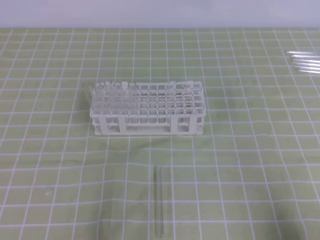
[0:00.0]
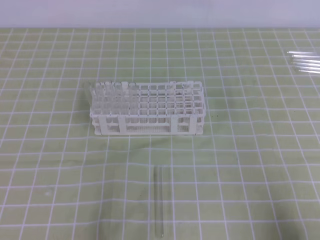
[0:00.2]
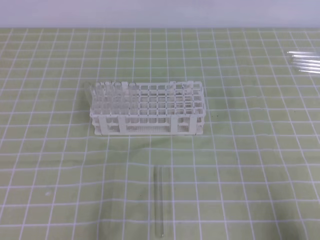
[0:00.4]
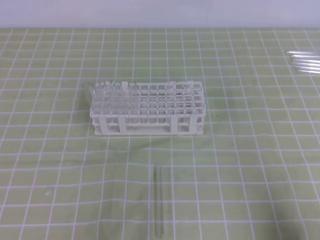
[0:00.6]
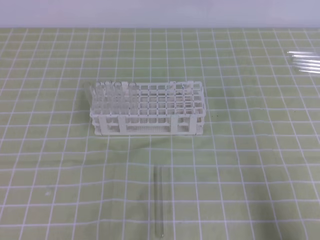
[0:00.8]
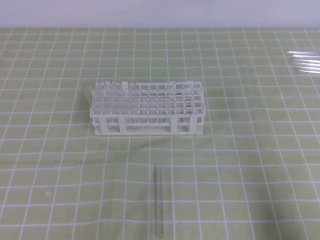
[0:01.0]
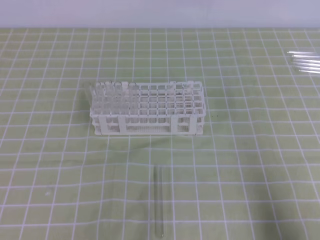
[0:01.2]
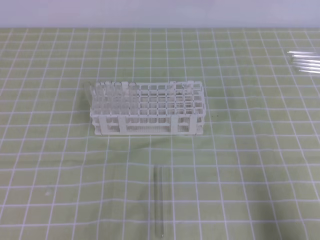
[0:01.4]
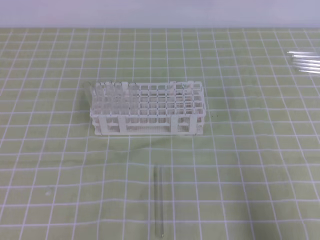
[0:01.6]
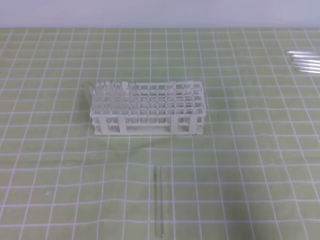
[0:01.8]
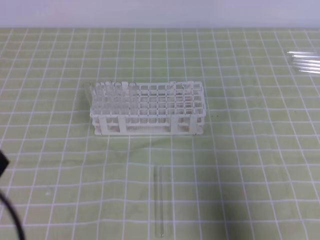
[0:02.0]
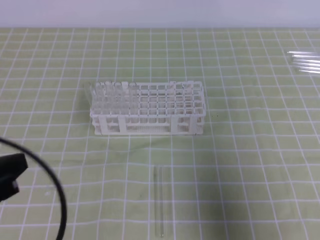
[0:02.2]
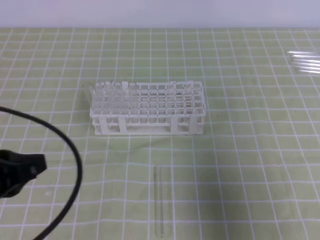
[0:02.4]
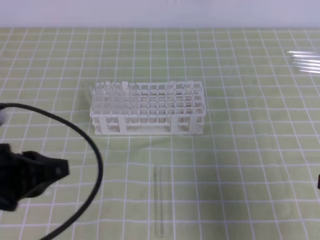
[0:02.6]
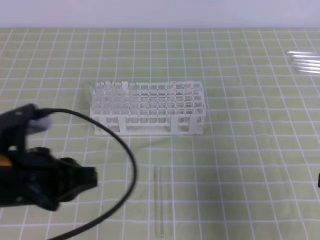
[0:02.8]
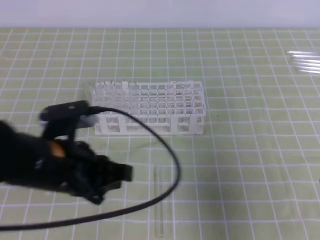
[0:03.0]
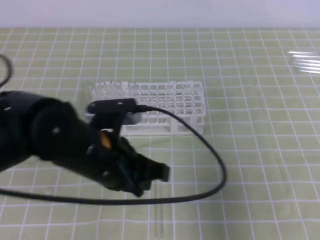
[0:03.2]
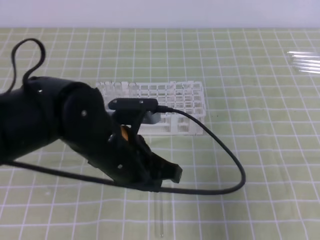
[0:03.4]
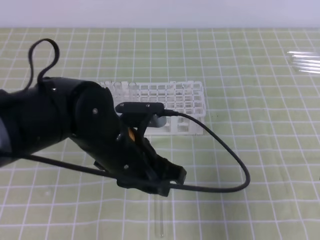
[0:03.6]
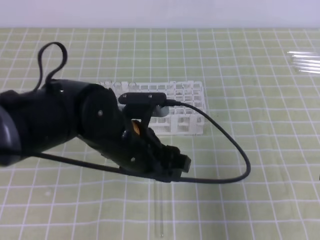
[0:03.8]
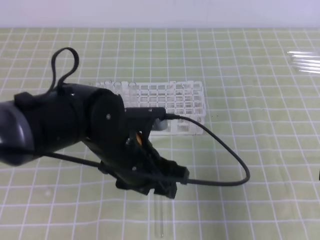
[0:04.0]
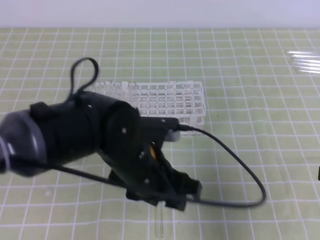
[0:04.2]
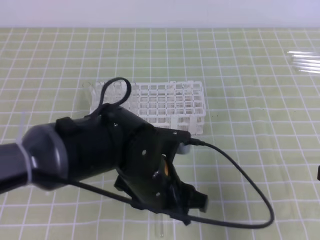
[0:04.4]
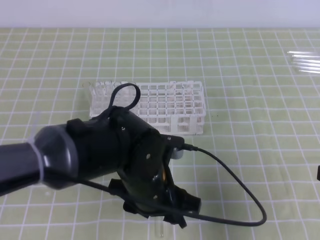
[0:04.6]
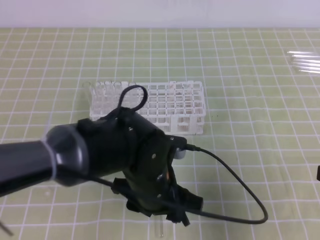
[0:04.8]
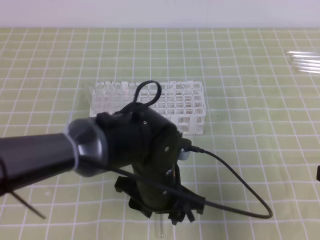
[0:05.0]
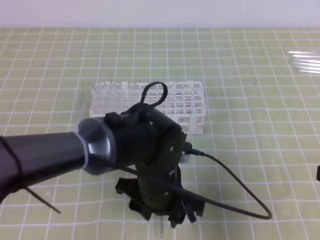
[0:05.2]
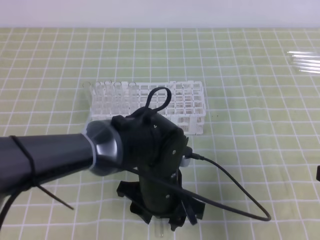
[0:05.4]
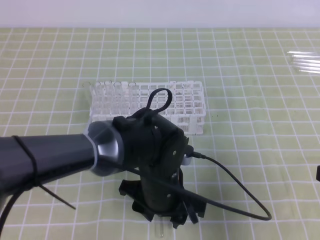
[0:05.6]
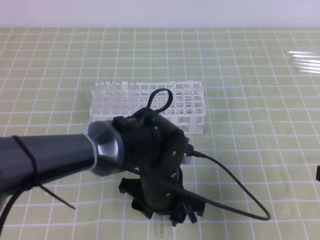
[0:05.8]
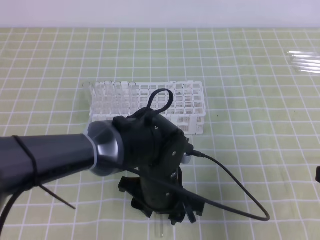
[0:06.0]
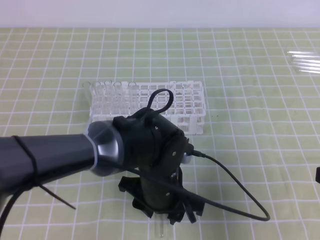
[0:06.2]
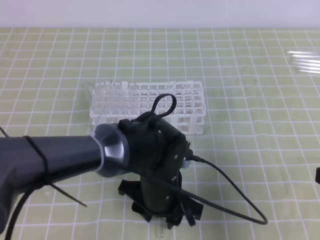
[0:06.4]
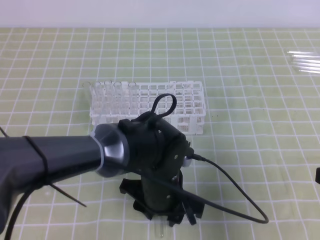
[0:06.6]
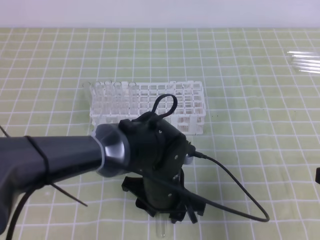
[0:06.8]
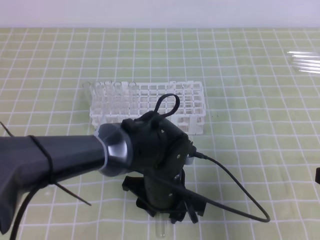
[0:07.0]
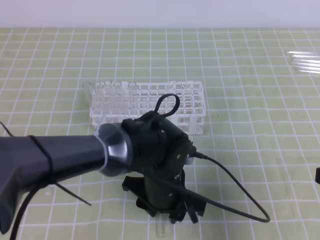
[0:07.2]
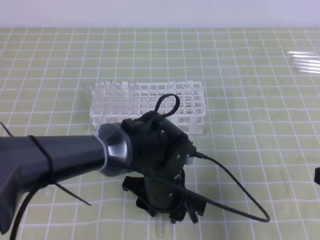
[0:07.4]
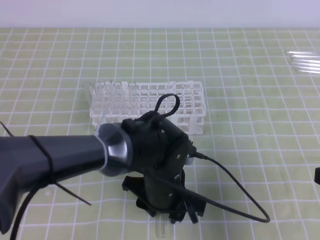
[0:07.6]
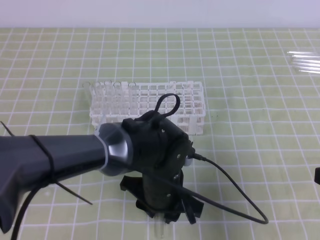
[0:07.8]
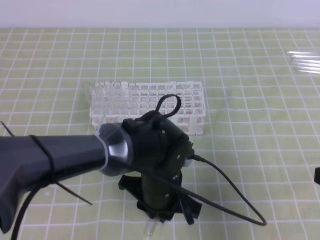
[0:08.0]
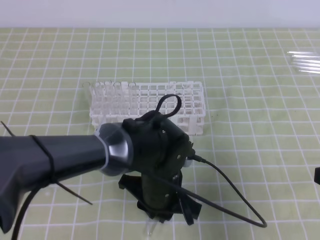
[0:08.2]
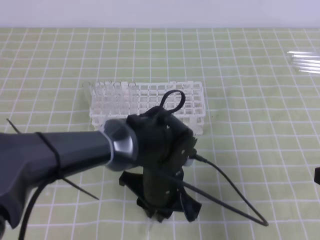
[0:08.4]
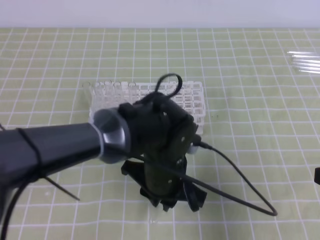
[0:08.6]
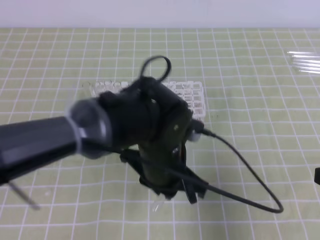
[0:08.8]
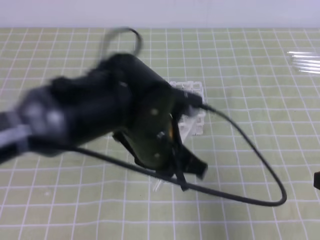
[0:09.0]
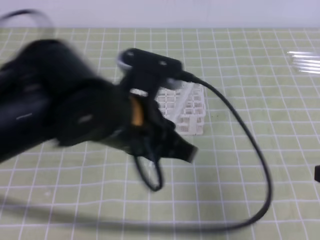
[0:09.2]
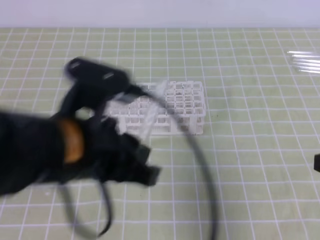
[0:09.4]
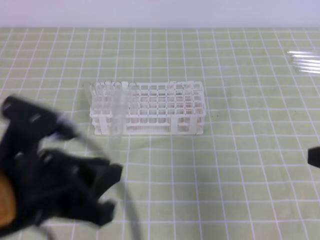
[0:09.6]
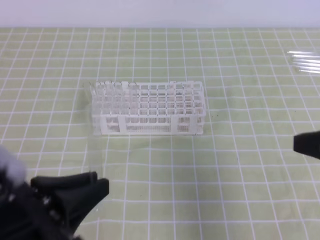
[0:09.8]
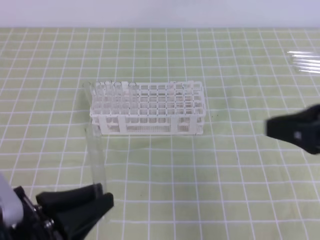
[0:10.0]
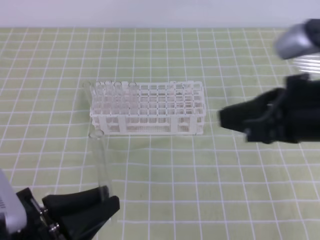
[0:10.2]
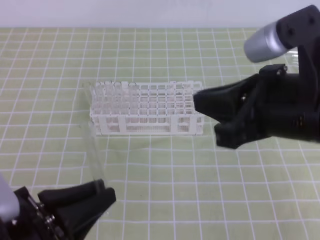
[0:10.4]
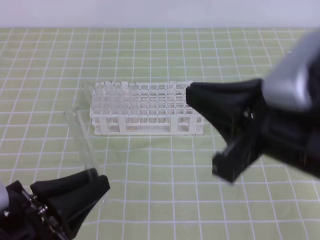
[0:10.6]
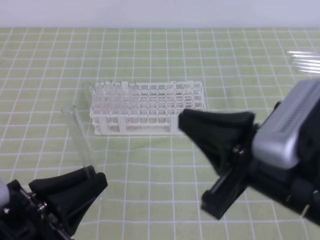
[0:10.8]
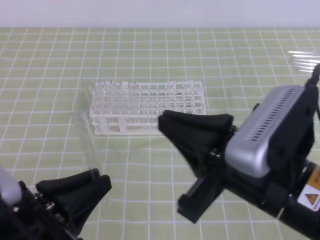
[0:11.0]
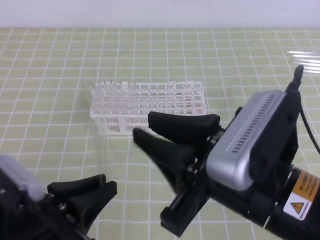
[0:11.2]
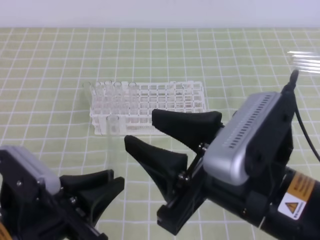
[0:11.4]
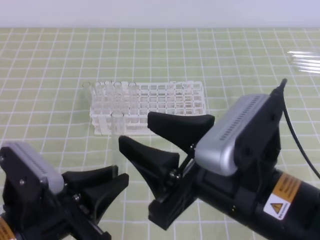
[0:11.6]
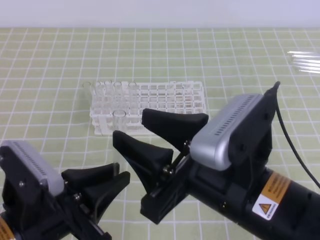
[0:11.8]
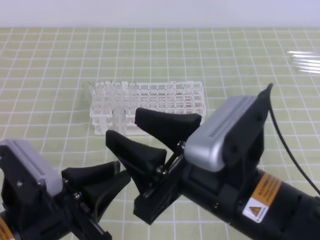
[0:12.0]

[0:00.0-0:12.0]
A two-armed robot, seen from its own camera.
0:01.6 to 0:03.0: The left gripper heads to the right and forward, covering about 20 cm. The right gripper heads forward, covering approximately 10 cm.
0:03.0 to 0:04.4: The left gripper shifts roughly 10 cm to the right, and opens its fingers.
0:04.4 to 0:06.0: The left gripper shifts by roughly 5 cm.
0:06.0 to 0:07.6: The grippers make only small movements.
0:07.6 to 0:09.0: The left gripper moves upward, roughly 10 cm, and closes.
0:09.0 to 0:10.4: The right gripper moves to the left and upward, roughly 15 cm; the left gripper goes about 20 cm to the left and backward.
0:10.4 to 0:12.0: The right gripper heads to the left and backward, covering approximately 10 cm, and opens its fingers.

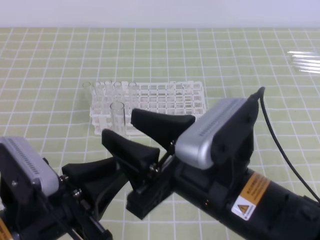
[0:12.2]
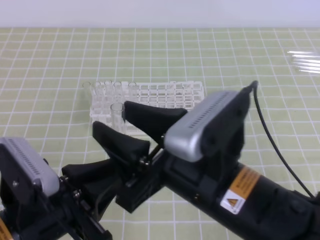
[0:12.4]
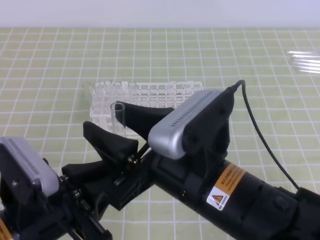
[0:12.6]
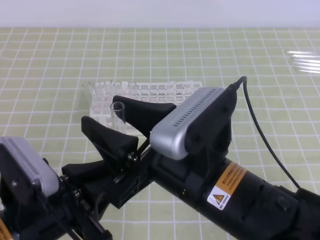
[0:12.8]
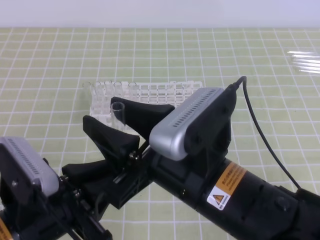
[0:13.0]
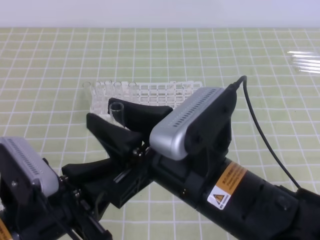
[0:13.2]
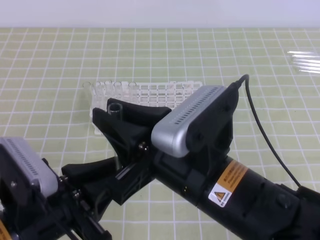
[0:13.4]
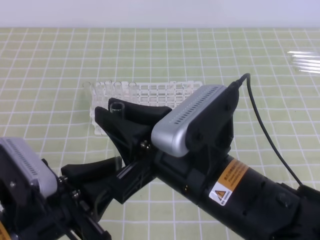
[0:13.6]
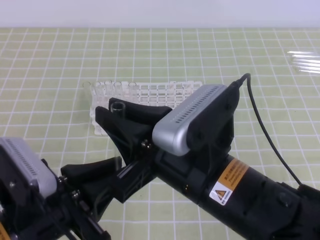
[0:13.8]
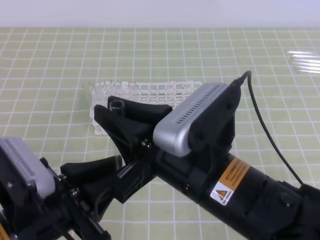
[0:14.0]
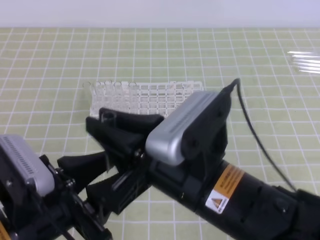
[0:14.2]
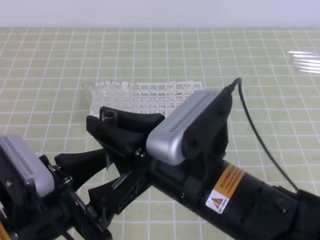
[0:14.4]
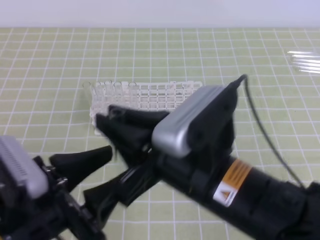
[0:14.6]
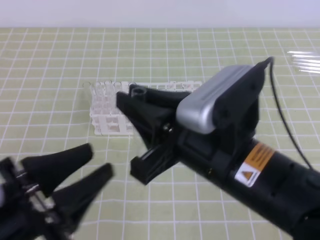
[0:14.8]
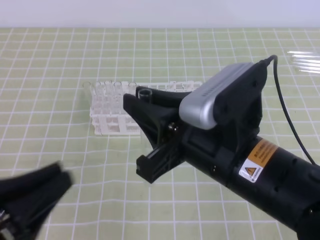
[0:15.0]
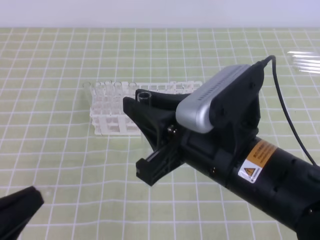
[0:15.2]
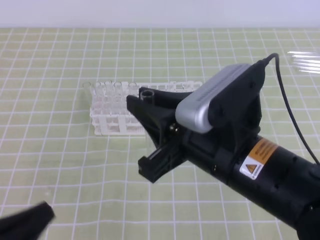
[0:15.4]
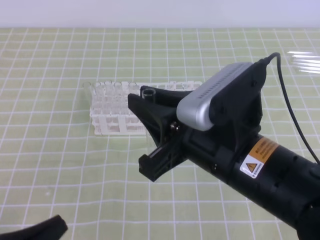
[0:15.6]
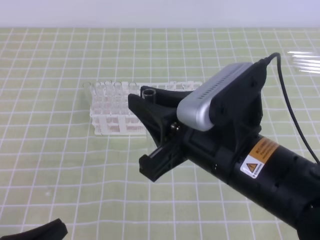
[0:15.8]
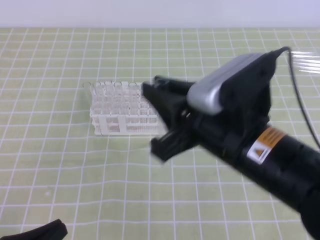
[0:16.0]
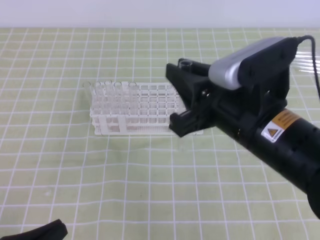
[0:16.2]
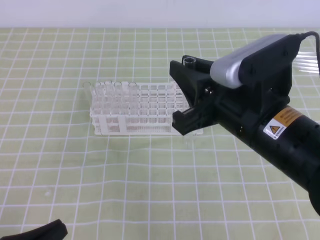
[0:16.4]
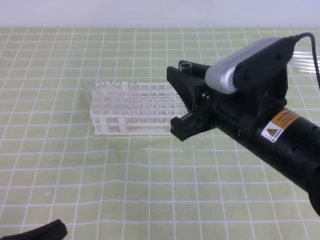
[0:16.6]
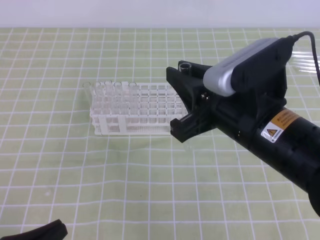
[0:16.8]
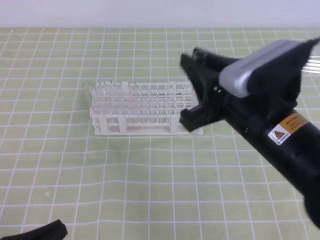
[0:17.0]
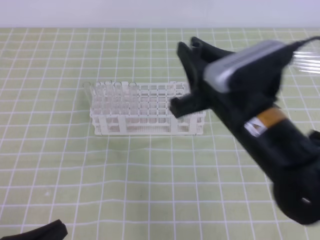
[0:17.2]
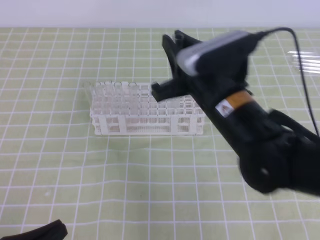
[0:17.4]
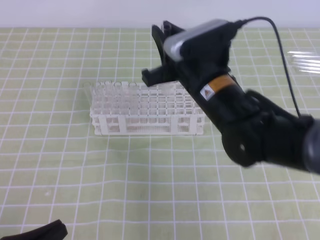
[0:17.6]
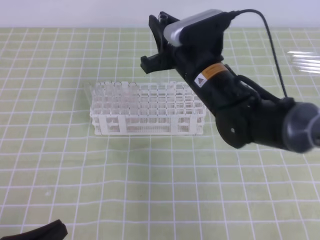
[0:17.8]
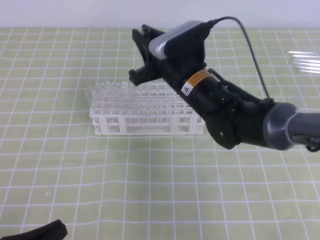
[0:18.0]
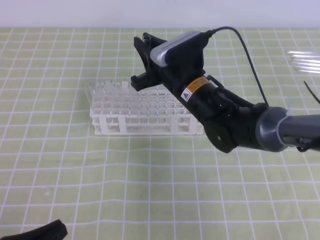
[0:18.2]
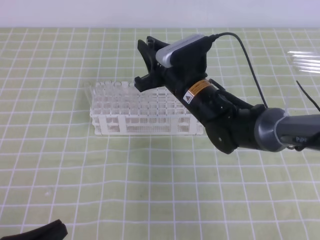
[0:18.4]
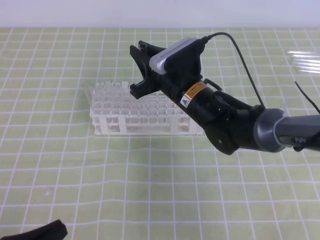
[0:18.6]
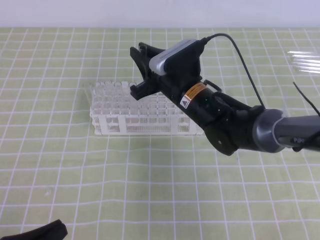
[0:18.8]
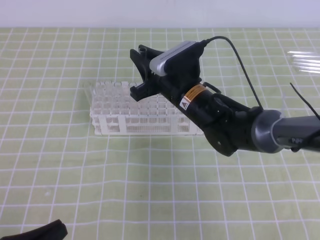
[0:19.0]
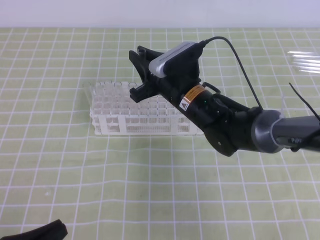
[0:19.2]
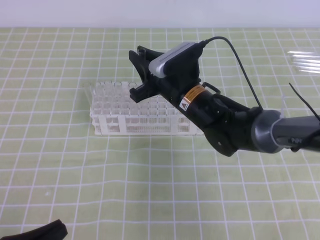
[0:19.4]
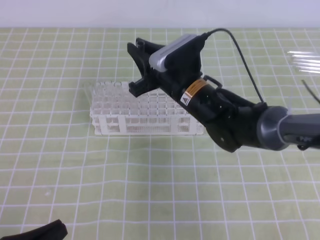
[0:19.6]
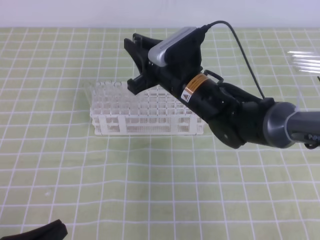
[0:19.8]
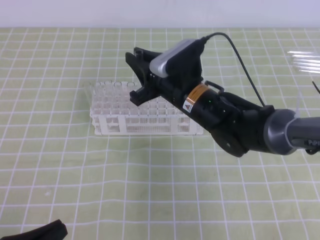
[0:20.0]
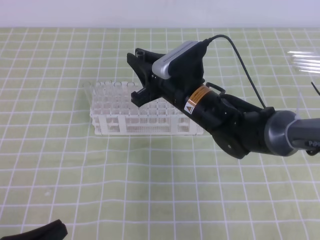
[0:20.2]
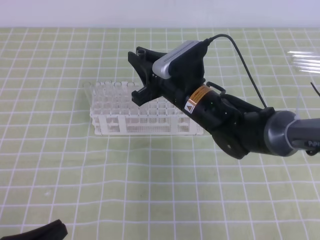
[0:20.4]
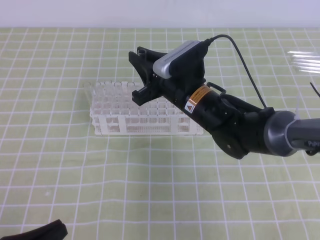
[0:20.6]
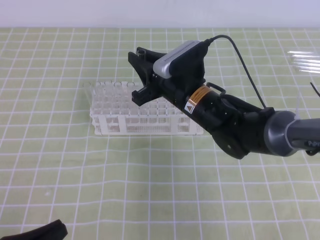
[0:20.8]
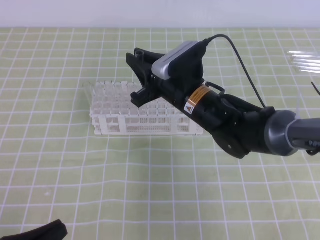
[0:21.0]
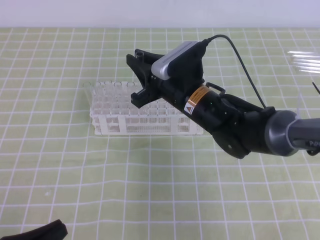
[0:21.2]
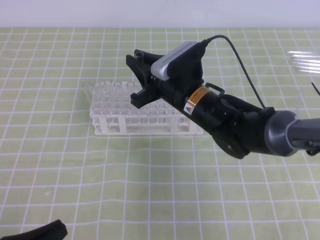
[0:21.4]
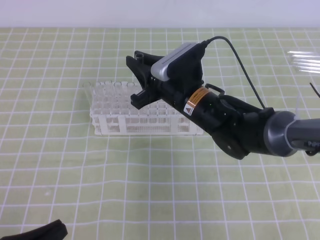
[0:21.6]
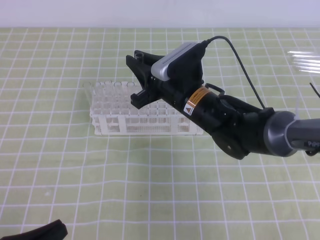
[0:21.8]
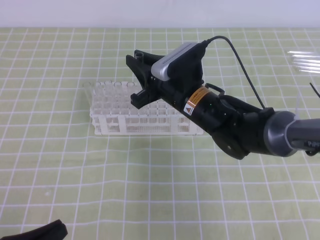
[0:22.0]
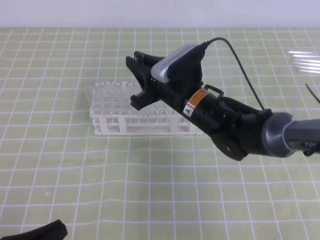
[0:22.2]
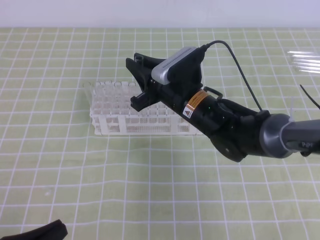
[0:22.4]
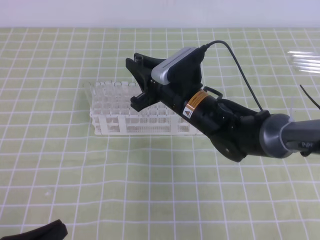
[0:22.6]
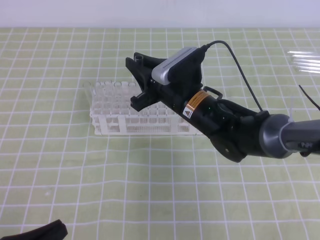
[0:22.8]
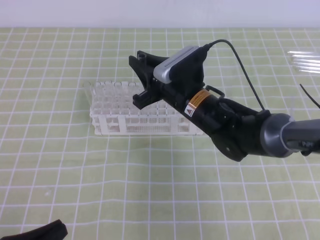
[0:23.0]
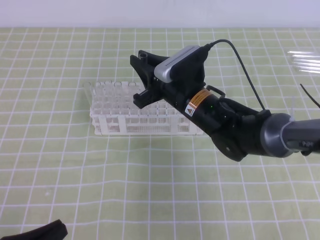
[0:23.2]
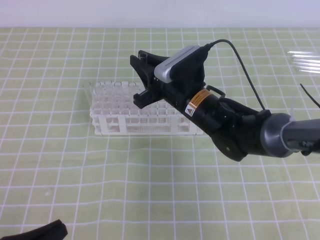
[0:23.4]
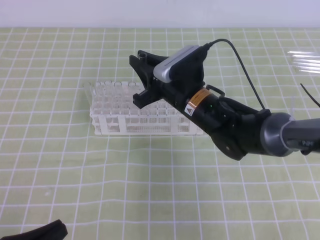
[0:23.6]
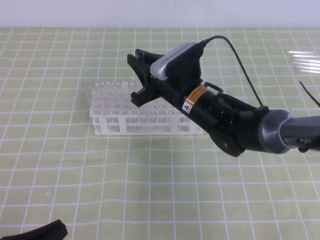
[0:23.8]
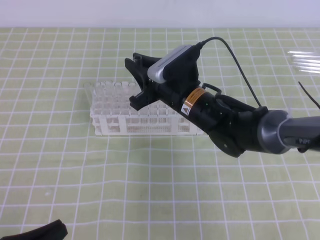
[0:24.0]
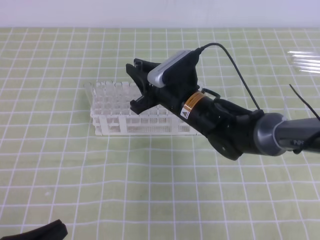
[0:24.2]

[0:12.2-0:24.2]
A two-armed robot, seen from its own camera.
0:12.2 to 0:13.8: The right gripper closes up.
0:13.8 to 0:15.2: The left gripper goes about 5 cm to the left, and opens, then closes again.
0:15.2 to 0:16.6: The right gripper changes place by approximately 5 cm, while the left gripper heads downward, covering roughly 5 cm.
0:16.6 to 0:18.2: The right gripper is displaced forward, downward and to the left by about 20 cm.
0:18.2 to 0:19.8: The grippers move only a little.
0:19.8 to 0:21.2: Both grippers stay about where they are.
0:21.2 to 0:22.6: Both grippers stay about where they are.
0:22.6 to 0:24.2: Neither gripper changes place.
